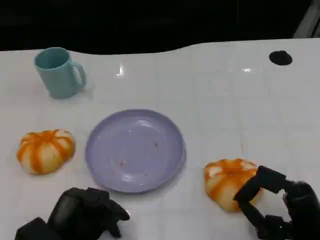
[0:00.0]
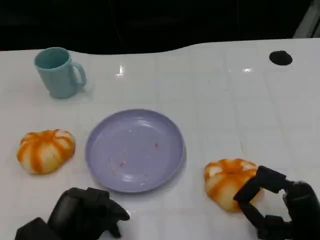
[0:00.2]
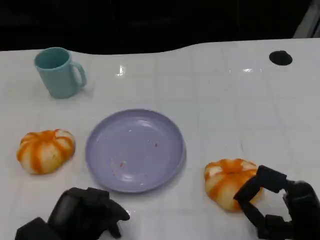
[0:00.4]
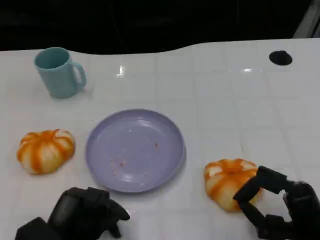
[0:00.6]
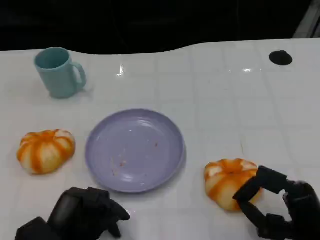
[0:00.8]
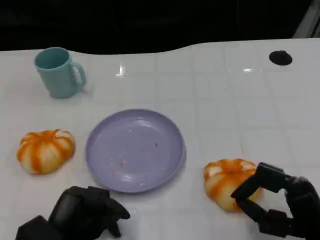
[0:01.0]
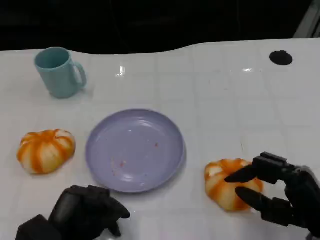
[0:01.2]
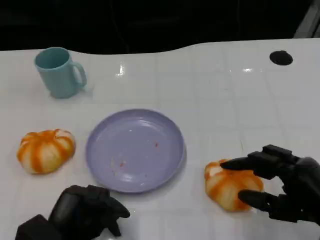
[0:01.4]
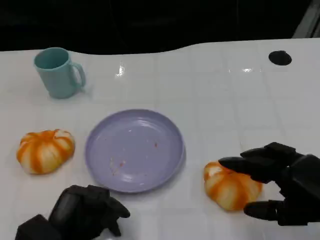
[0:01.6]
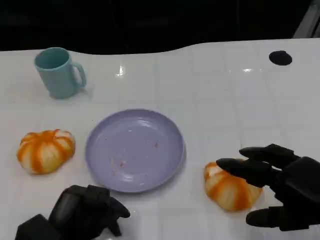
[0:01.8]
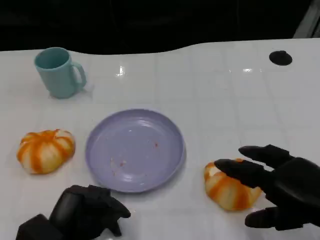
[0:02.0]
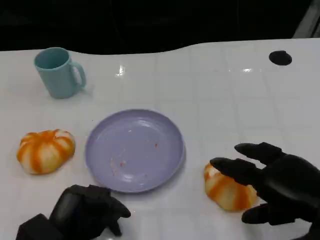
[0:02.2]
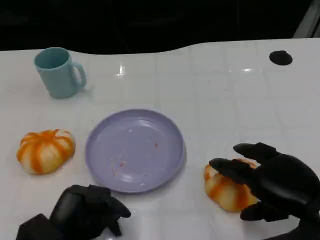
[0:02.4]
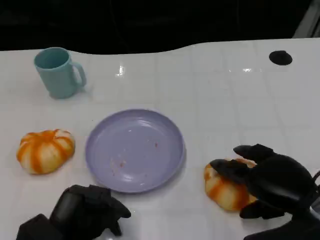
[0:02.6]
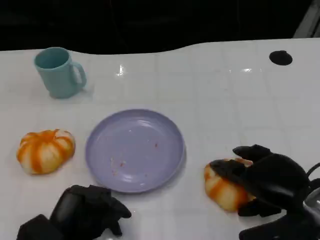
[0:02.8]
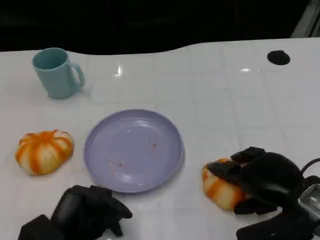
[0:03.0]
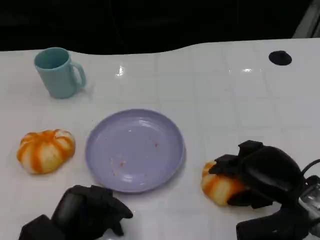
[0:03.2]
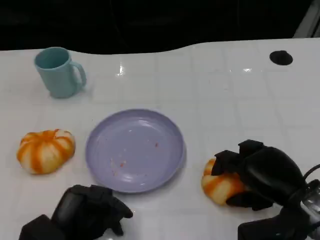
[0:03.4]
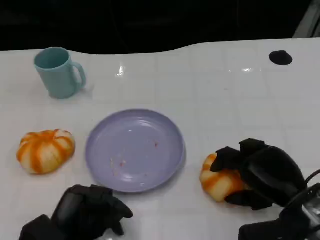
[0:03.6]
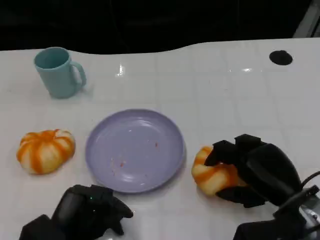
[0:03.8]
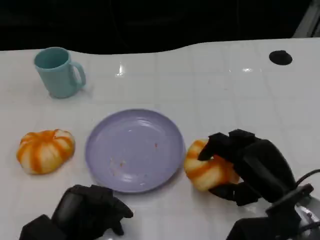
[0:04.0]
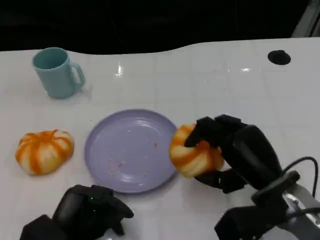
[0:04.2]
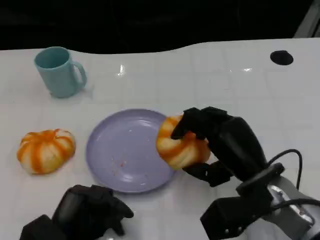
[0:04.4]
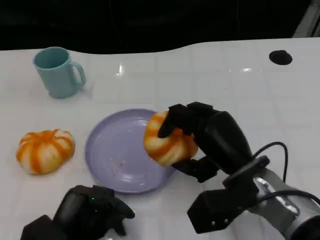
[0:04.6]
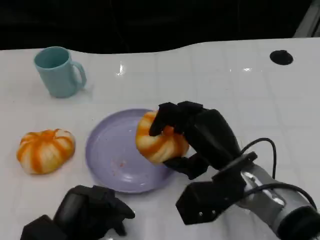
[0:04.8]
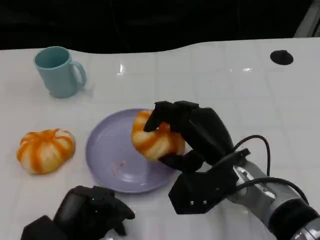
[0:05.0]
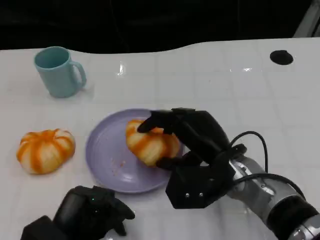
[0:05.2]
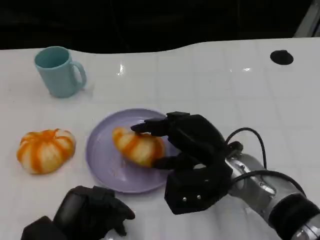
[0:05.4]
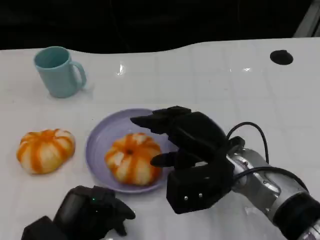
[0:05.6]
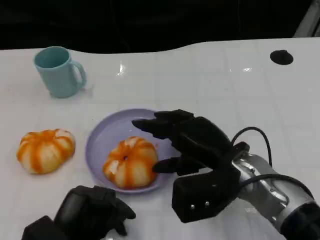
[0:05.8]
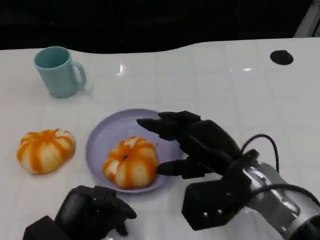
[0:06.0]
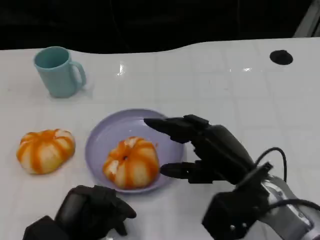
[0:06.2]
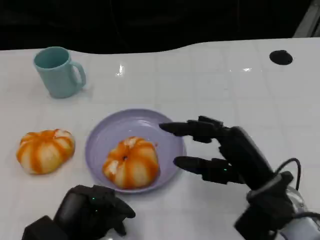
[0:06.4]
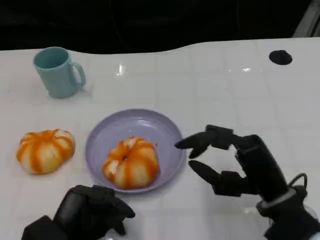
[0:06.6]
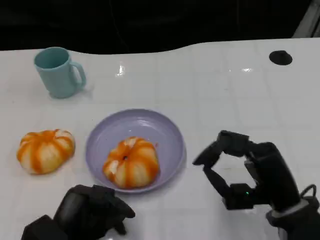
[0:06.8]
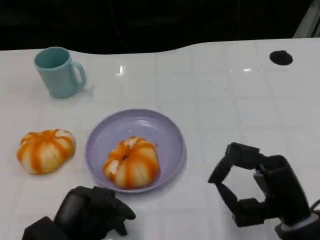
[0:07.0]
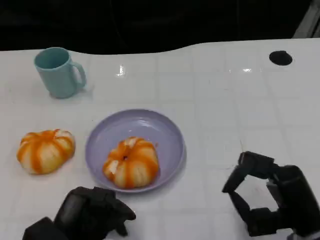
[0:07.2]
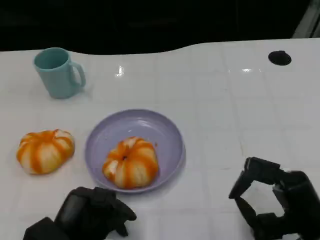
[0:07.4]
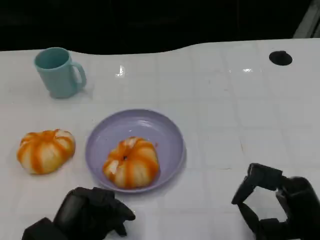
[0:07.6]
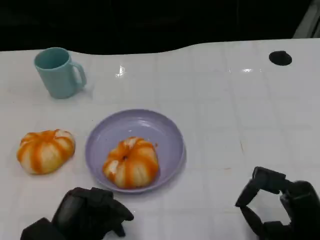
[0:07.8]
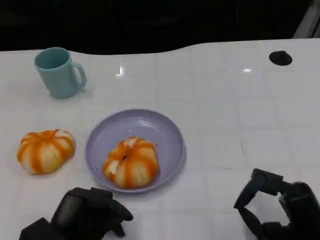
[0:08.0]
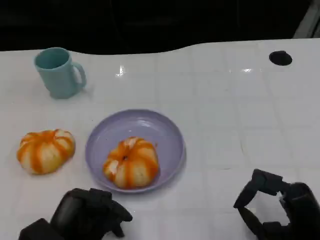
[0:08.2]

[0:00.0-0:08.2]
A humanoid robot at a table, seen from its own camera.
Task of the whole recording: Grasp the bread from the table and place it into the plate.
0:00.0 to 0:01.6: The right hand travels upward by some 10 cm.
0:01.6 to 0:03.2: The right hand moves forward and downward, about 10 cm.
0:03.2 to 0:05.0: The right hand moves to the left, approximately 10 cm.
0:05.0 to 0:06.6: The right hand travels to the right and backward by approximately 10 cm.
0:06.6 to 0:08.2: The right hand travels to the right by roughly 5 cm.

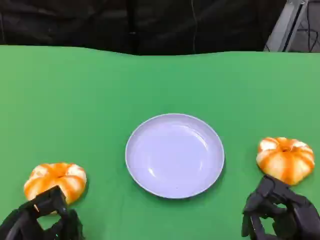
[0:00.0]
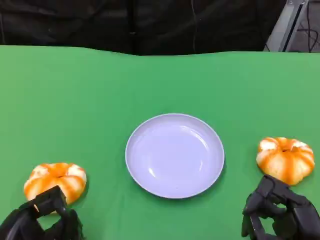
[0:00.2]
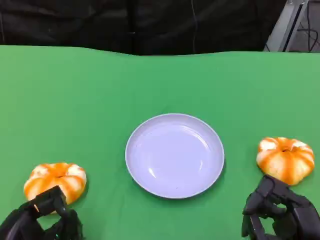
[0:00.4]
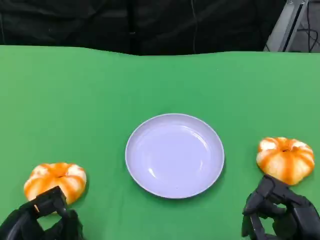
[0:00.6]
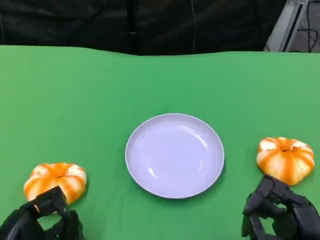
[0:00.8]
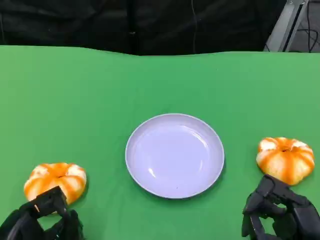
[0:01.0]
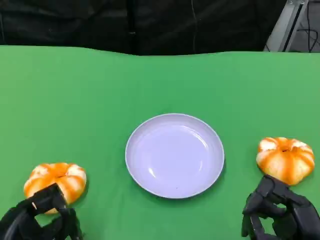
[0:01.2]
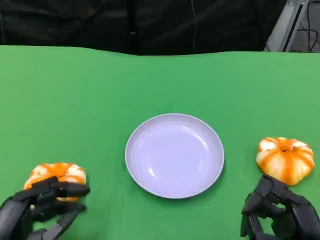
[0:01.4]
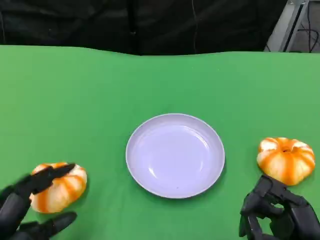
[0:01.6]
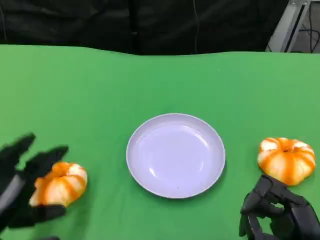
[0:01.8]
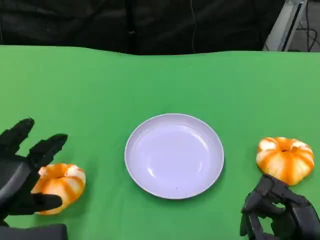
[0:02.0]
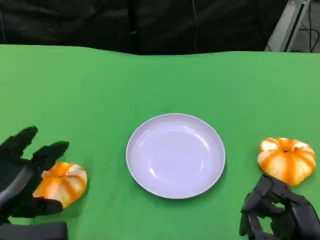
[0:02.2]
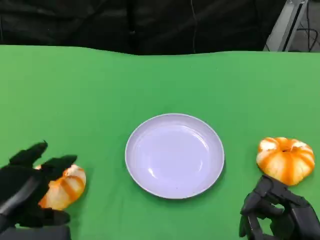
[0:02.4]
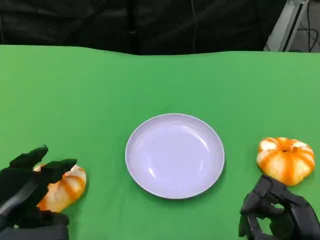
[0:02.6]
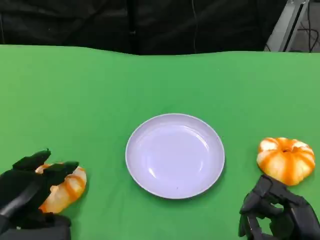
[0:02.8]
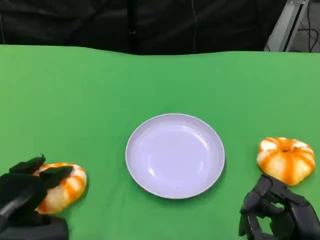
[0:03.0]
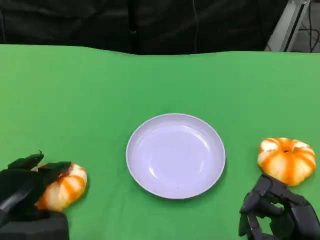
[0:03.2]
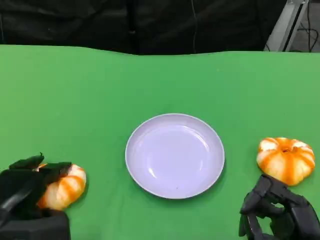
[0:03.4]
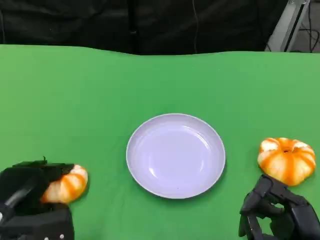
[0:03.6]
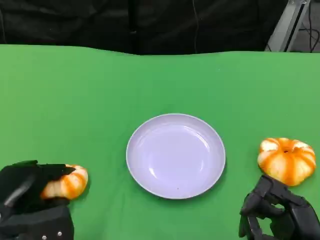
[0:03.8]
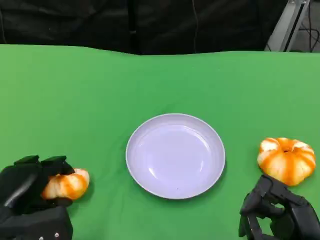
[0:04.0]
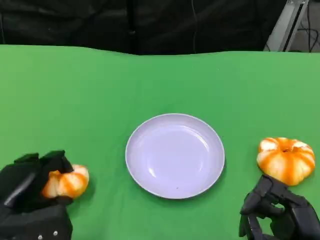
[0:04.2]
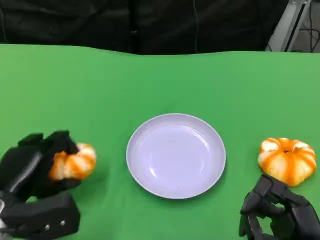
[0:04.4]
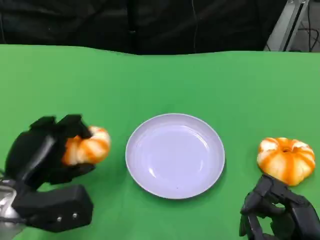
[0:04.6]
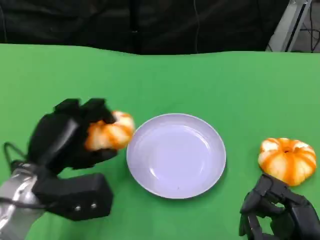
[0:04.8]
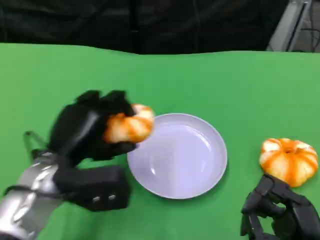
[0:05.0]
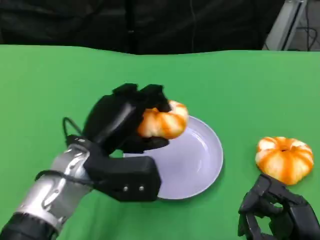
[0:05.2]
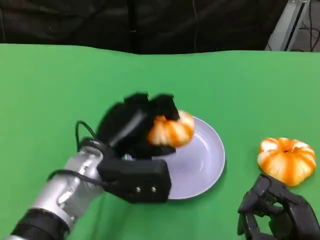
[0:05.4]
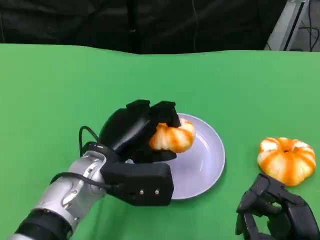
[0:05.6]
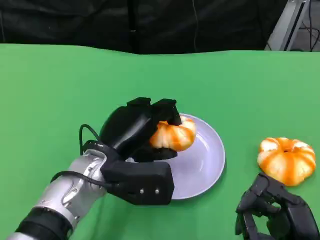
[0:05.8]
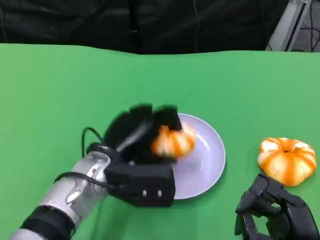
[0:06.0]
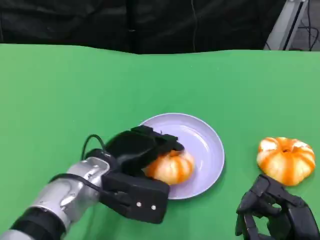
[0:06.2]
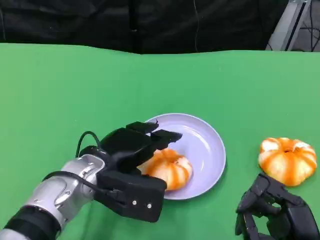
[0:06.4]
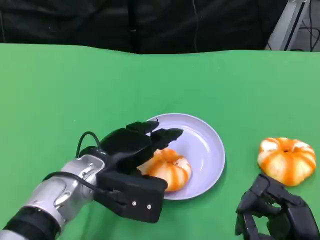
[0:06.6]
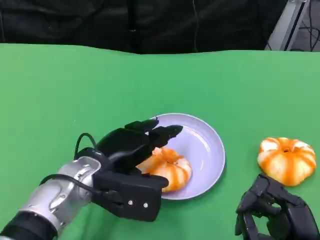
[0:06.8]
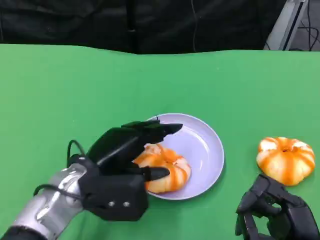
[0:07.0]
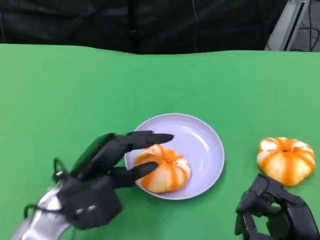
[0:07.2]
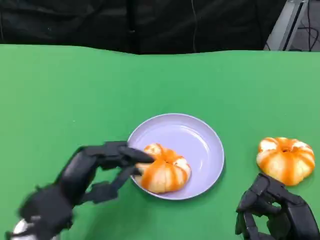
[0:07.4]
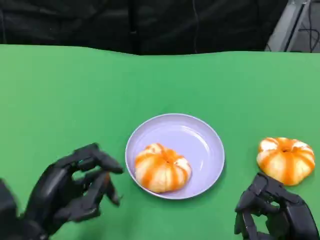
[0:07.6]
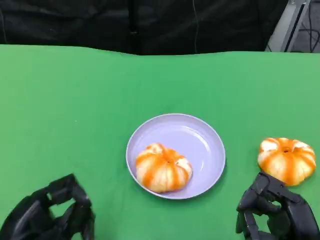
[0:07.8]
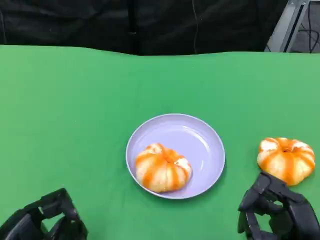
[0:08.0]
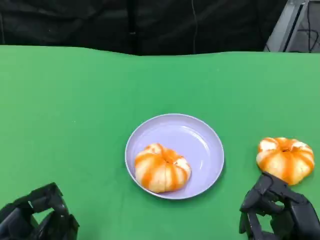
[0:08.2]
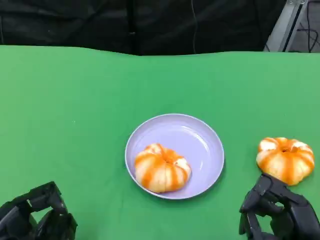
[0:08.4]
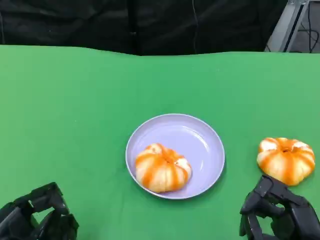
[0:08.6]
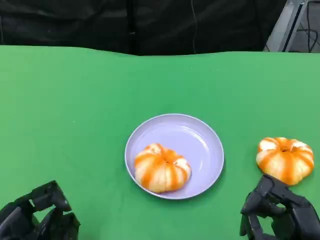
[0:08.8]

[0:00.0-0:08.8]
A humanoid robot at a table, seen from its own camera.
Task of the whole recording: Grasp the bread from the table and place it into the plate.
0:01.4 to 0:03.0: The left hand heads forward, covering some 5 cm.
0:04.4 to 0:05.8: The left hand moves to the right, about 15 cm.
0:05.8 to 0:07.4: The left hand moves to the left and backward, about 10 cm.
0:07.4 to 0:08.8: The left hand travels to the left and backward by about 10 cm.

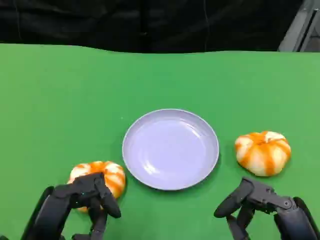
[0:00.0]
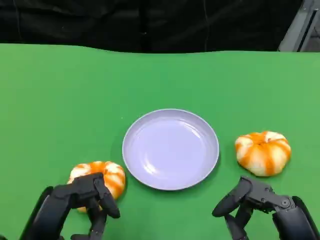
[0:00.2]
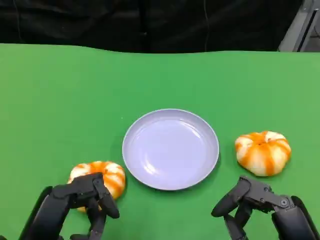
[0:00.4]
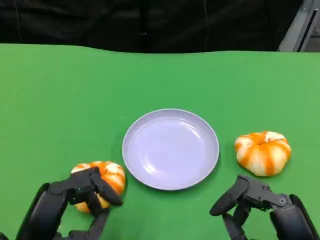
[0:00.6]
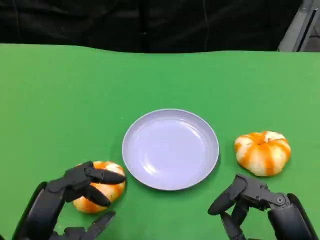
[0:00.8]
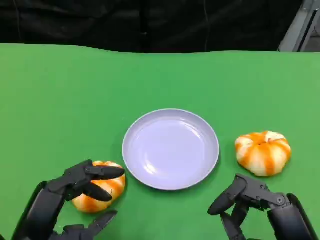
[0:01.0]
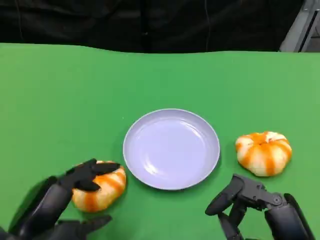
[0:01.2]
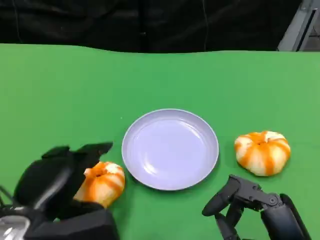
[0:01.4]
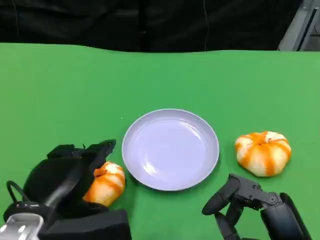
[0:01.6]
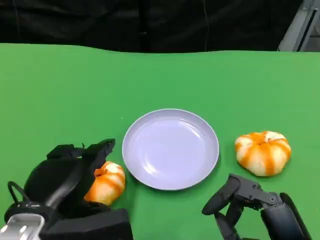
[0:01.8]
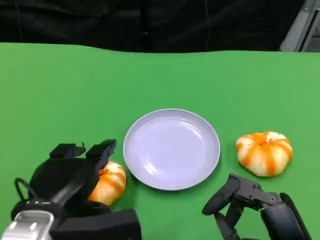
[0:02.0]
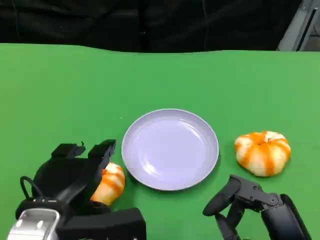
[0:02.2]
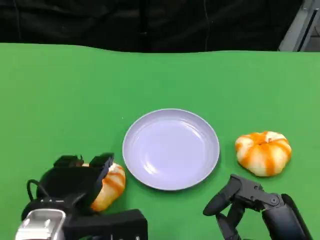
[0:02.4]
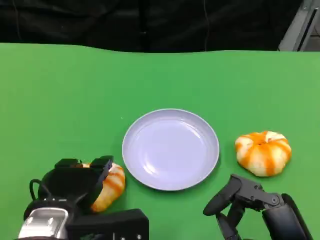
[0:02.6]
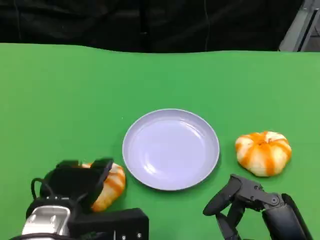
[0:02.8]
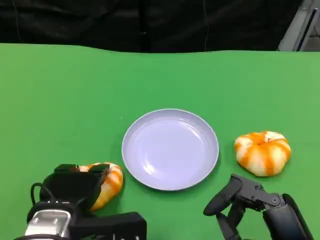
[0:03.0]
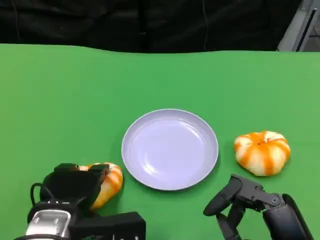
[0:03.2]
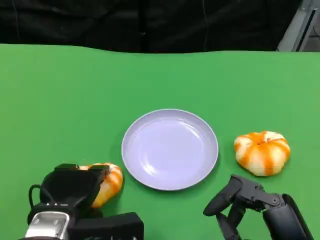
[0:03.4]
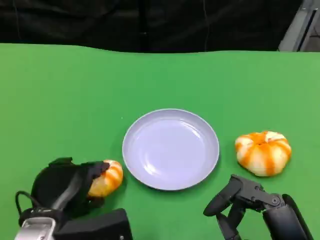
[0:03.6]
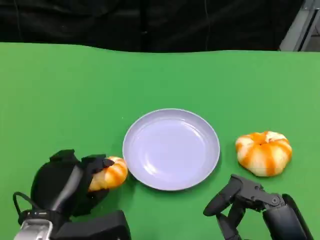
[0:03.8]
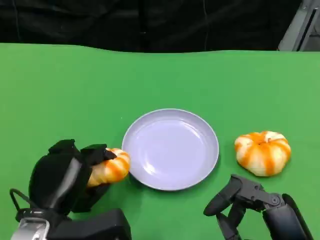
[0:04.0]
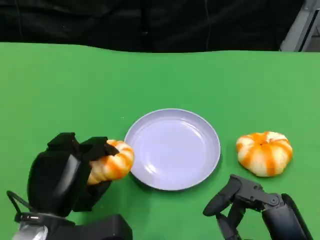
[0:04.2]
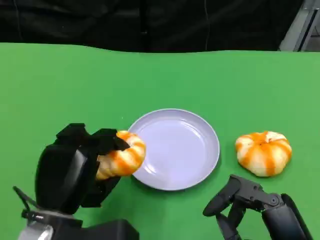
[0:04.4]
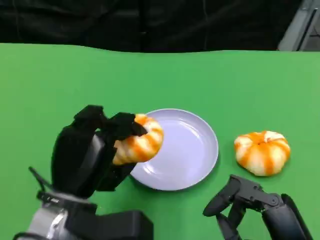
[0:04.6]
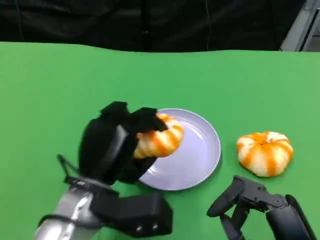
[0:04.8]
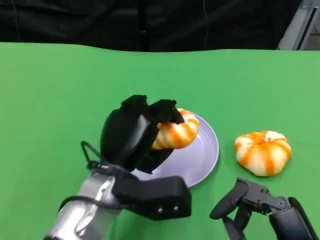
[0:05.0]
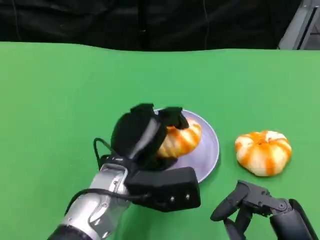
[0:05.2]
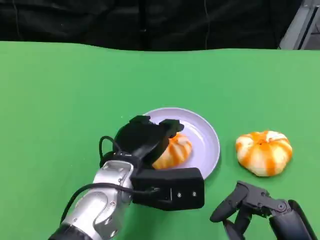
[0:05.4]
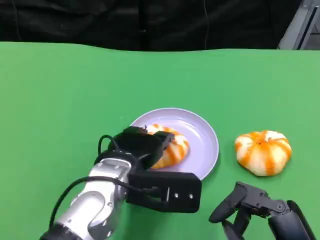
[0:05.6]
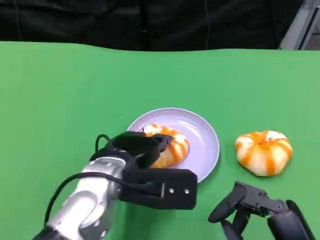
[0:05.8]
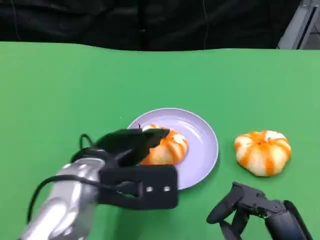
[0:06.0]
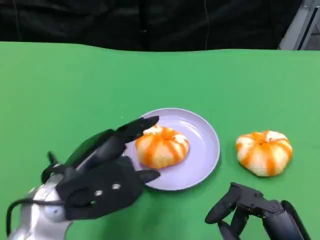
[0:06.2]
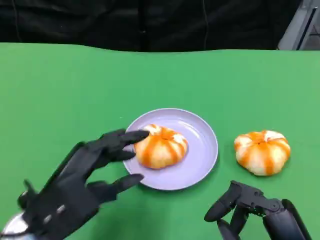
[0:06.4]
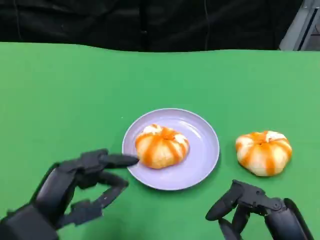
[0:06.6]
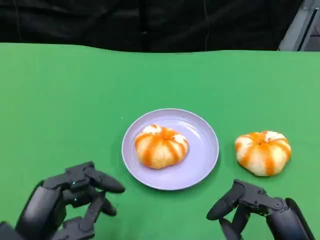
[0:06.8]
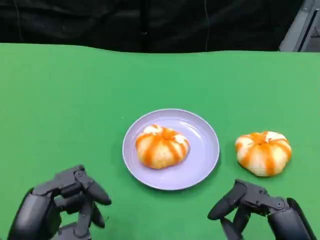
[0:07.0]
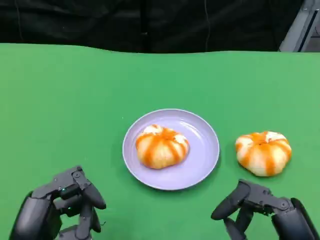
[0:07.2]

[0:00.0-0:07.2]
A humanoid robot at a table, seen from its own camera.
Task of the whole recording: Grasp the bread from the table and place it into the plate.
0:00.0 to 0:01.4: The left hand ends up about 5 cm from where it was.
0:04.4 to 0:05.8: The left hand moves to the right and forward, some 10 cm.
0:05.8 to 0:07.2: The left hand shifts approximately 15 cm backward and to the left.
